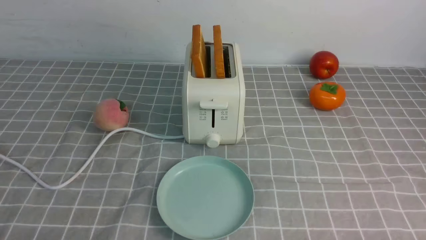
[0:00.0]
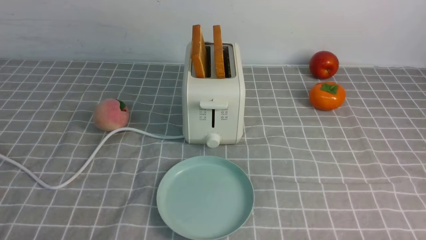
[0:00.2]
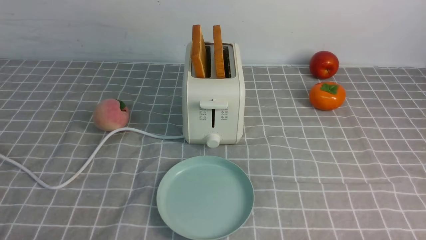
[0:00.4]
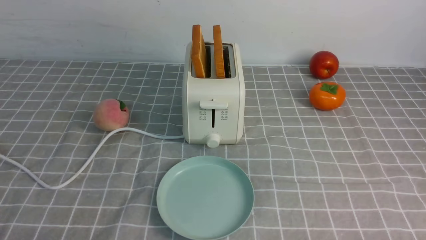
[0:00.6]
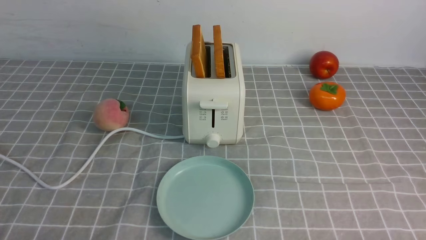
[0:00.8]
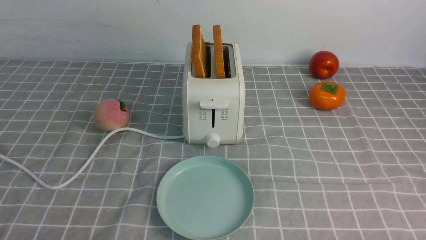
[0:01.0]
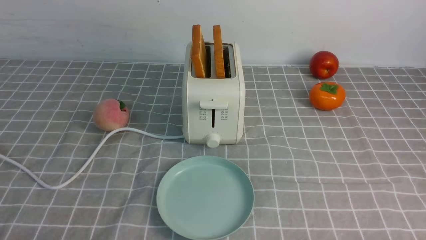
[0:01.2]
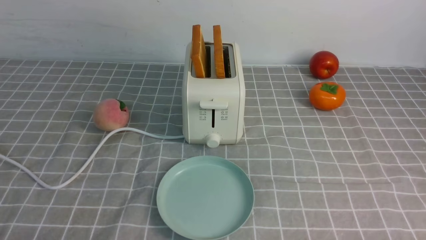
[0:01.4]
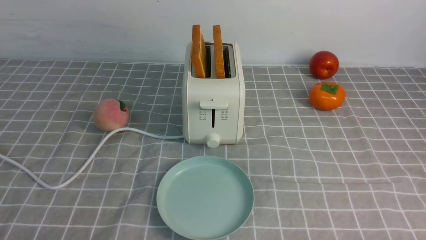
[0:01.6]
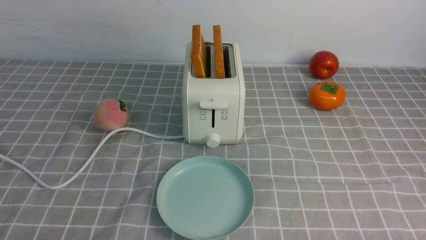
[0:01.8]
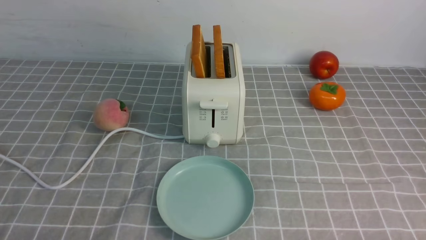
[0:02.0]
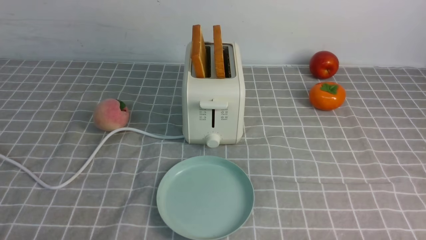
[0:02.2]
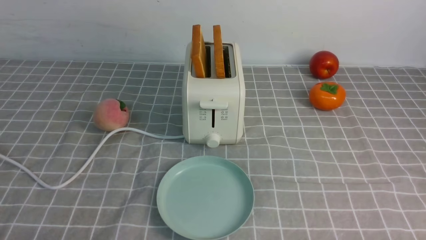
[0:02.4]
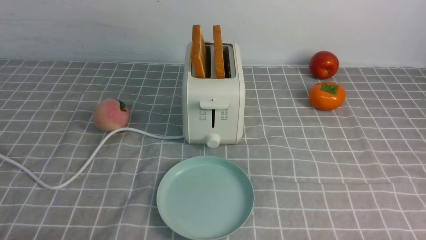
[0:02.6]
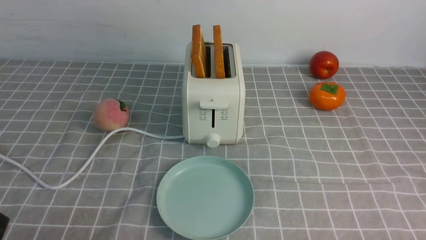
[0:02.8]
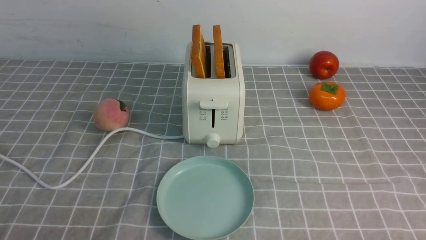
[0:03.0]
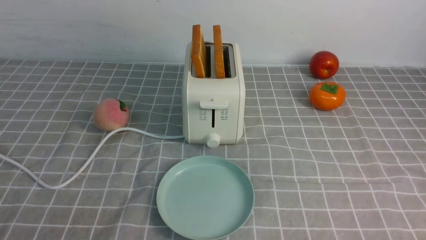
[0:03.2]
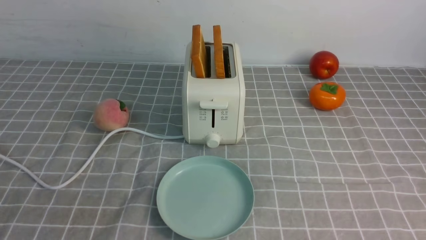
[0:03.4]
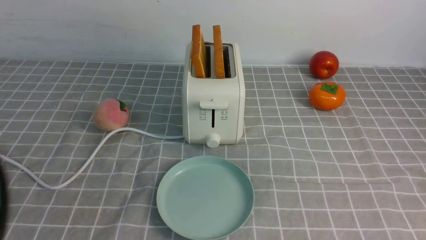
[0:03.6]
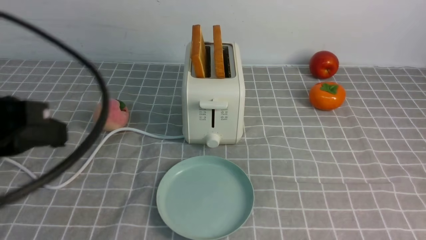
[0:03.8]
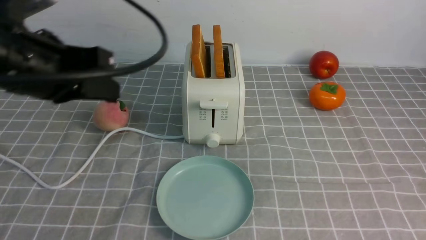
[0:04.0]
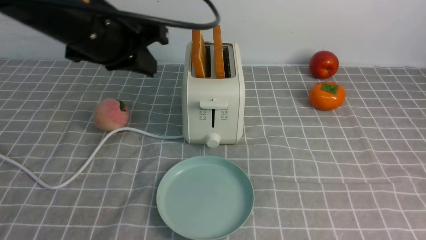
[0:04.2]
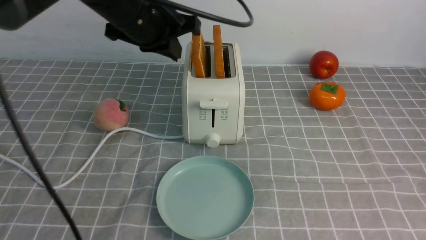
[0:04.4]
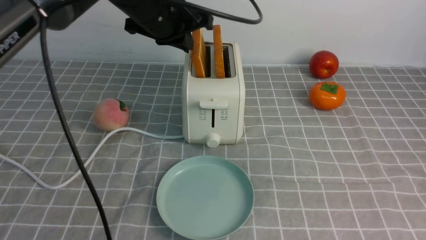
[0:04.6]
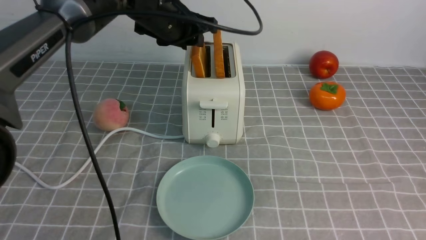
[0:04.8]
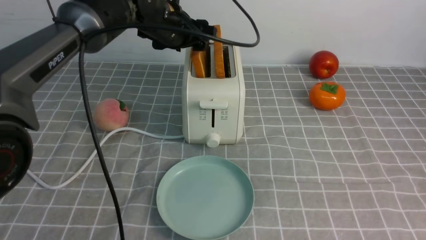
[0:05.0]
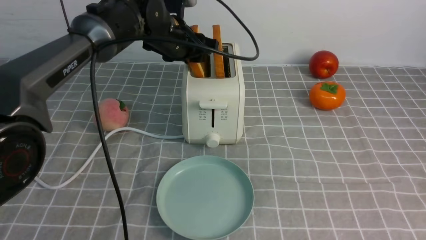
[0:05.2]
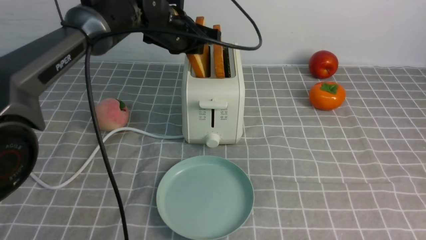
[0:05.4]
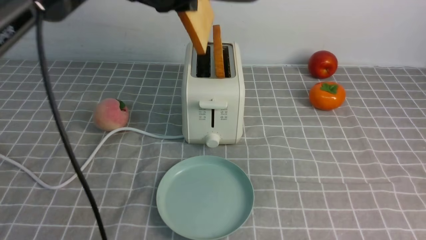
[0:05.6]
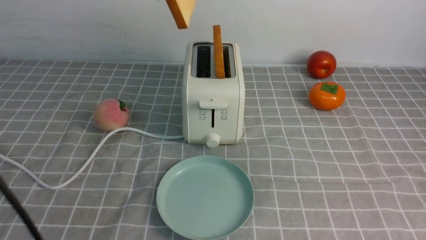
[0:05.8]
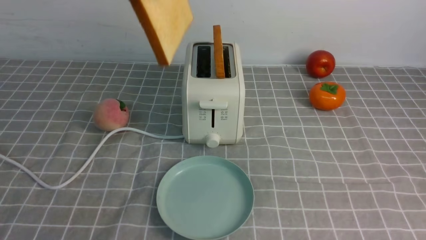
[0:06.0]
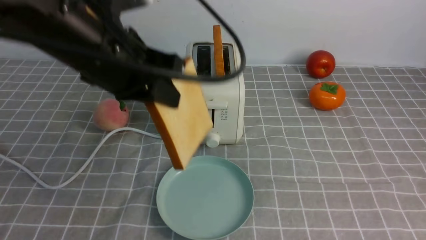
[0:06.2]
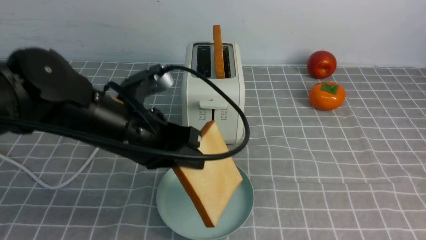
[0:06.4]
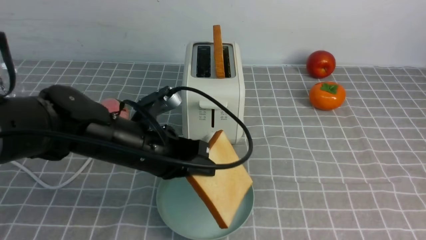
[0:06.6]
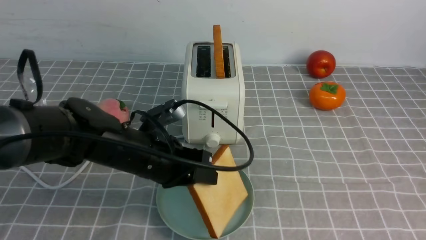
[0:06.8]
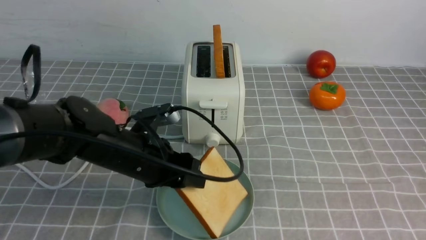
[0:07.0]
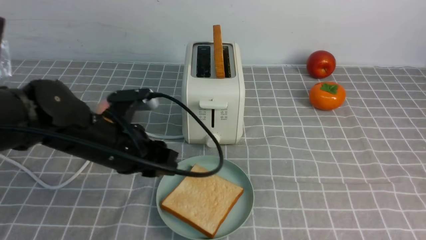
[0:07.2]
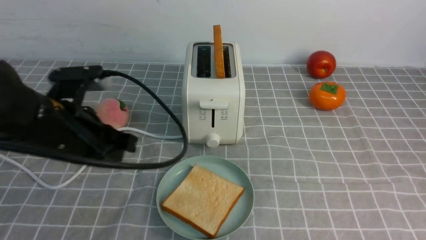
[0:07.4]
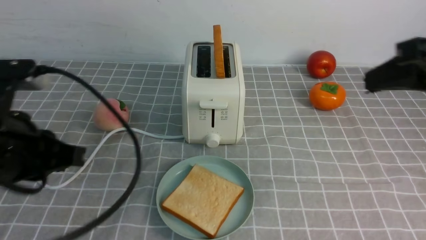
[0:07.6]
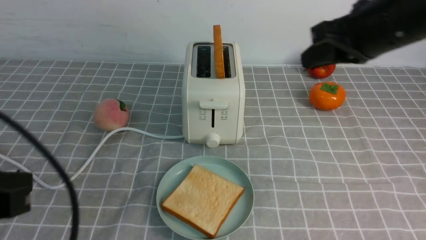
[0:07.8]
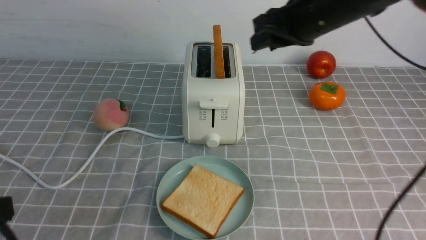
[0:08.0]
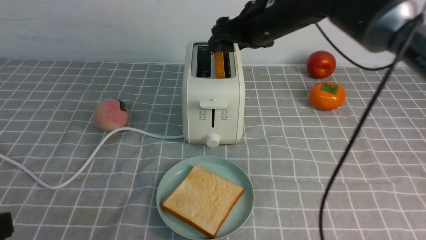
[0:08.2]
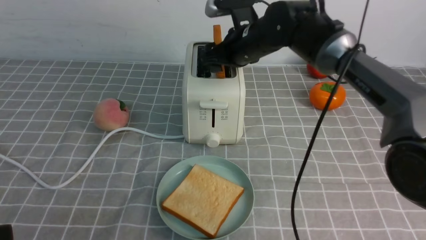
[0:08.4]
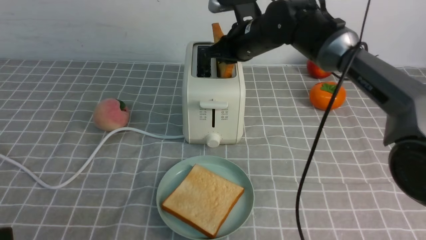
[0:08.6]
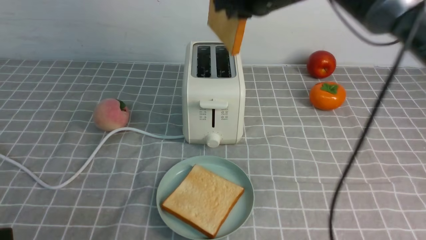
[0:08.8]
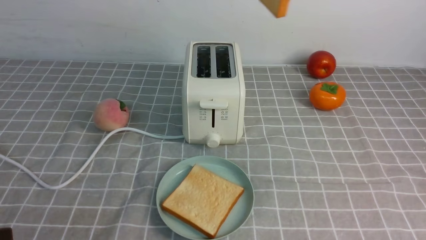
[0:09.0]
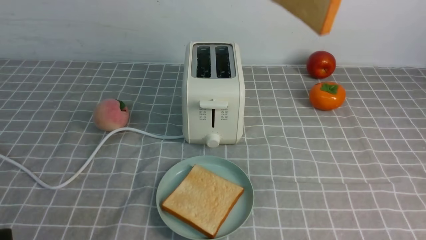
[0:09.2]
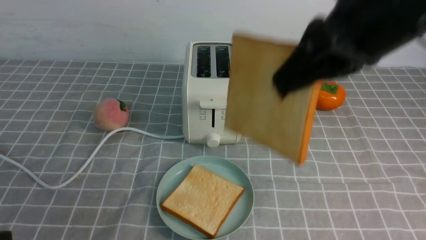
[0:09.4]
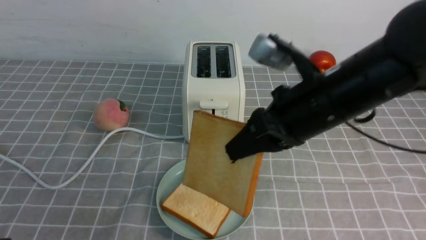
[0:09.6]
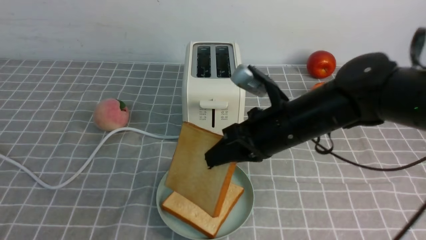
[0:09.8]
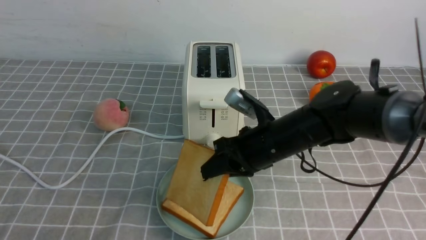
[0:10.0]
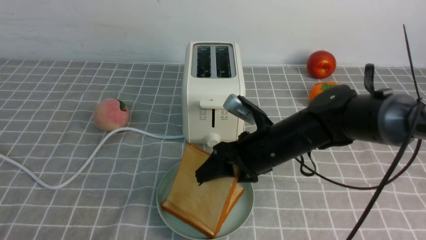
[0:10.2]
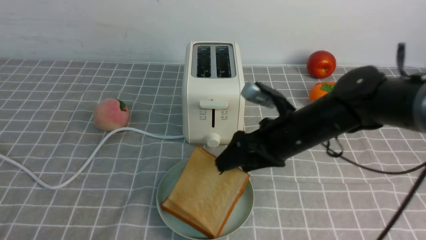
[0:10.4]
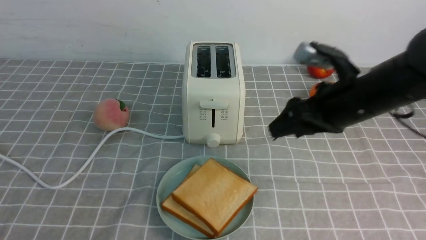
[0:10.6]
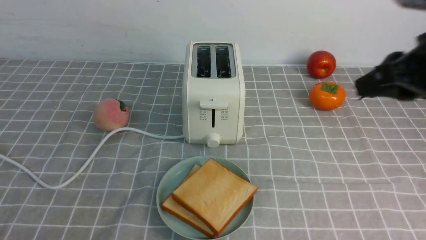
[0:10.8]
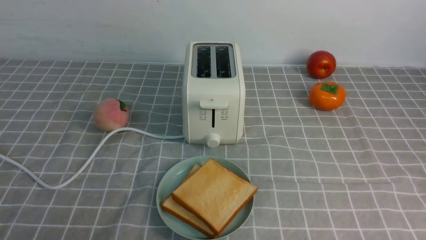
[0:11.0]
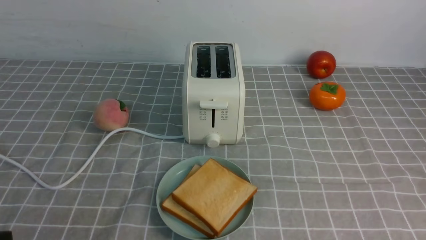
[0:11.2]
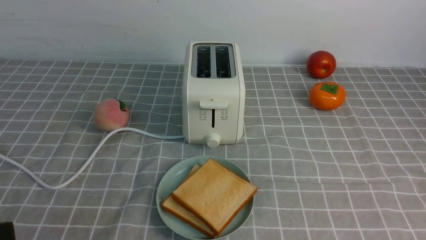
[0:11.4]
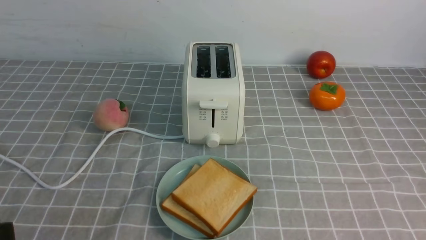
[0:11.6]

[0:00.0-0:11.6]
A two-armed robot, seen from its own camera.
Task of the whole recording: take toasted bread from bread machine on grey coffee table place on plate.
Step, 0:00.0 to 0:05.6: use the left arm to take out a slice of bread.
Step, 0:05.8 to 0:07.2: use the left arm to put a slice of bread into the empty plate.
Step, 0:07.4 to 0:08.6: use the right arm to take out a slice of bread.
Step, 0:08.8 to 0:10.4: use the right arm to put a slice of bread into the plate.
0:02.8 to 0:04.4: The left gripper travels forward, upward and to the right by some 40 cm, and closes up, while the right gripper travels upward by roughly 15 cm, and closes up.
0:04.4 to 0:05.8: The left gripper heads upward, covering roughly 5 cm, and opens and closes again.
0:05.8 to 0:07.2: The left gripper heads downward and backward, covering some 25 cm, and opens up.
0:07.2 to 0:08.8: The left gripper is displaced backward and to the left by some 25 cm, and closes its fingers, while the right gripper goes some 40 cm forward and to the left, and opens and closes again.
0:08.8 to 0:10.2: The right gripper heads downward and backward, covering about 20 cm, and opens up.
0:10.2 to 0:11.6: The right gripper shifts about 35 cm backward and to the right, and closes up.
